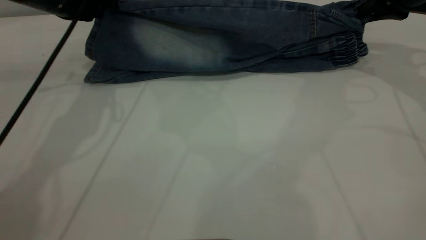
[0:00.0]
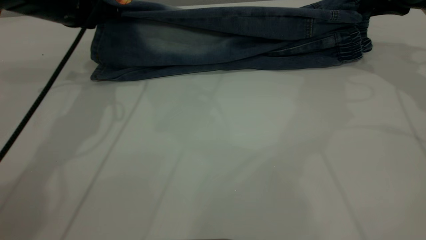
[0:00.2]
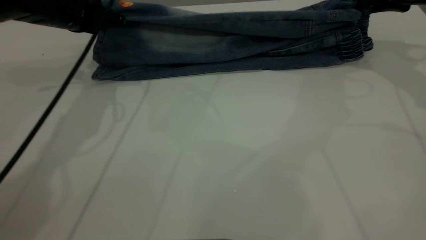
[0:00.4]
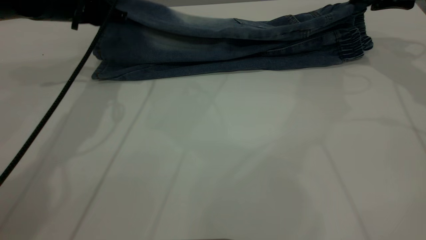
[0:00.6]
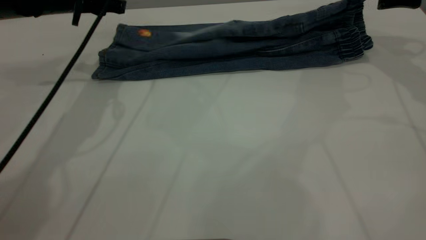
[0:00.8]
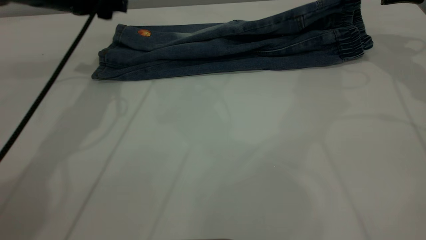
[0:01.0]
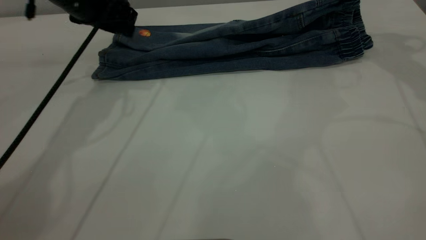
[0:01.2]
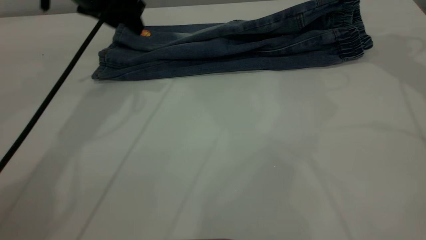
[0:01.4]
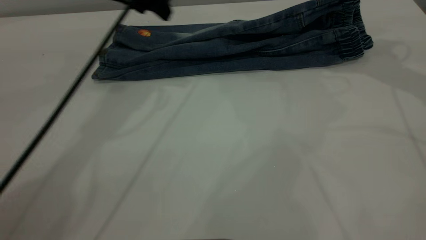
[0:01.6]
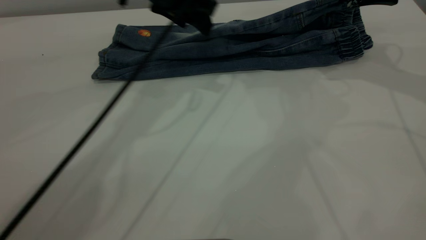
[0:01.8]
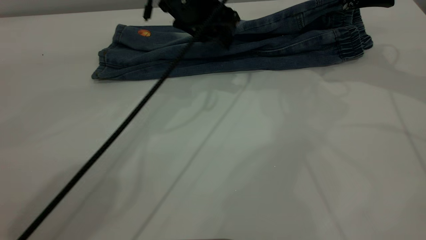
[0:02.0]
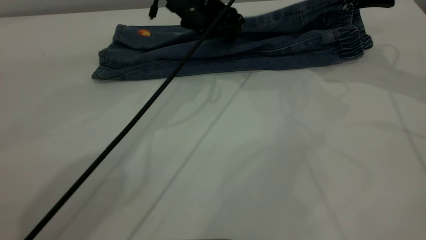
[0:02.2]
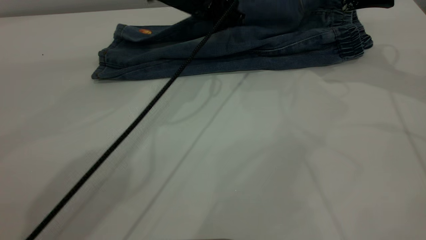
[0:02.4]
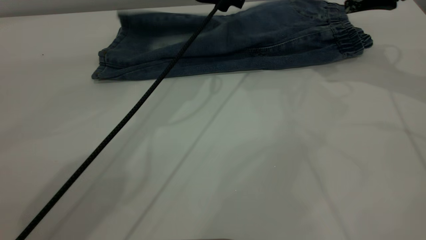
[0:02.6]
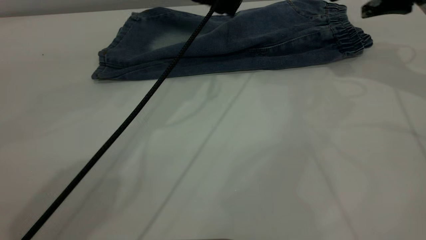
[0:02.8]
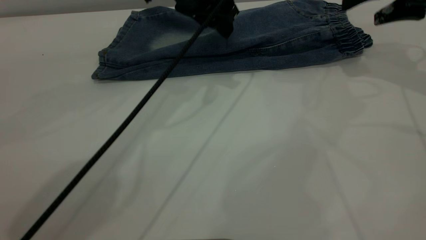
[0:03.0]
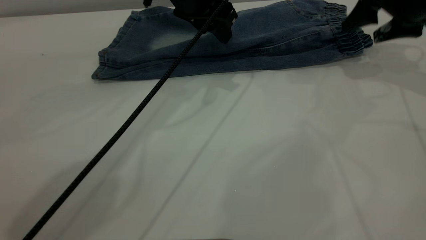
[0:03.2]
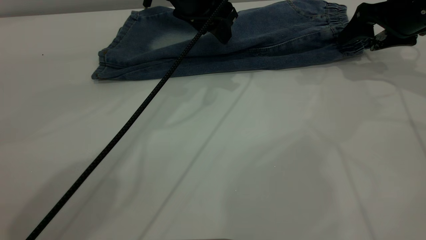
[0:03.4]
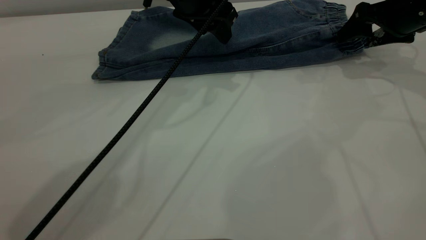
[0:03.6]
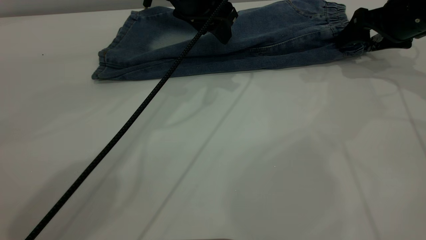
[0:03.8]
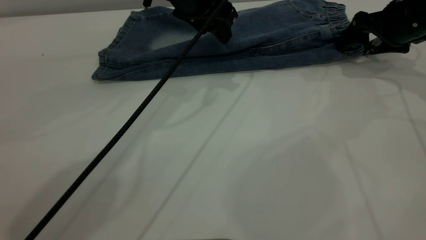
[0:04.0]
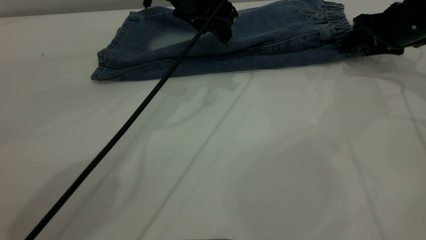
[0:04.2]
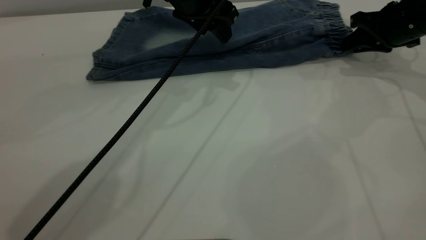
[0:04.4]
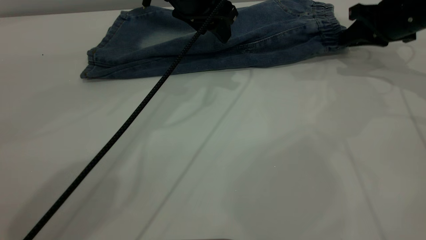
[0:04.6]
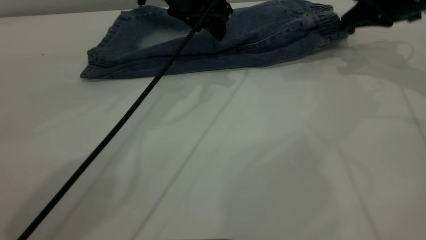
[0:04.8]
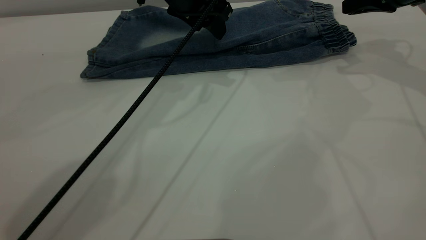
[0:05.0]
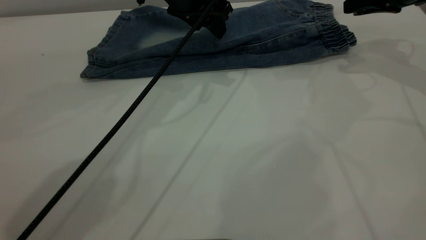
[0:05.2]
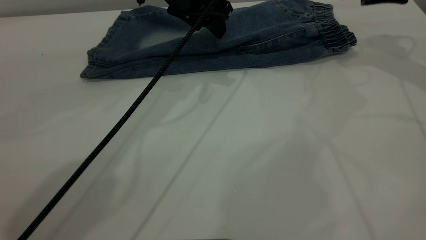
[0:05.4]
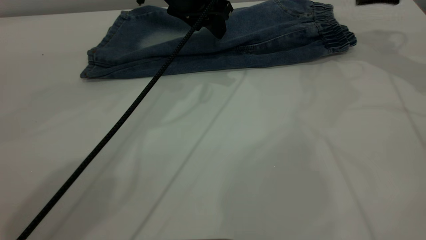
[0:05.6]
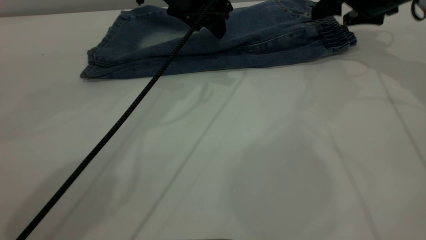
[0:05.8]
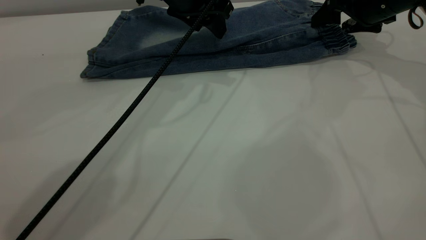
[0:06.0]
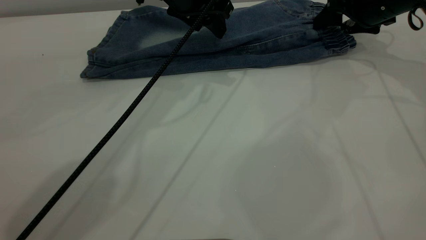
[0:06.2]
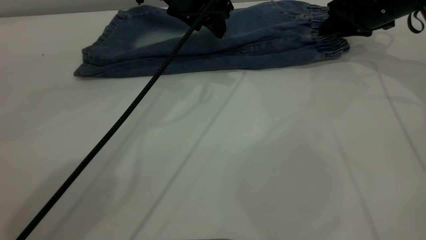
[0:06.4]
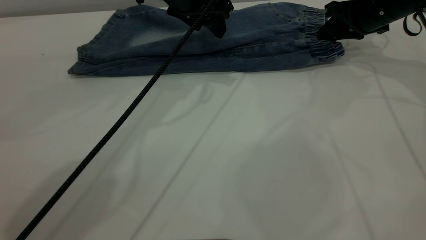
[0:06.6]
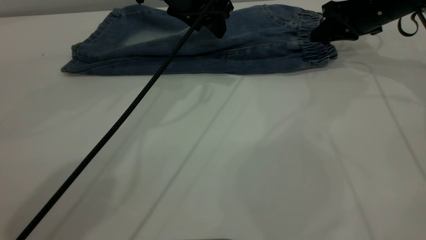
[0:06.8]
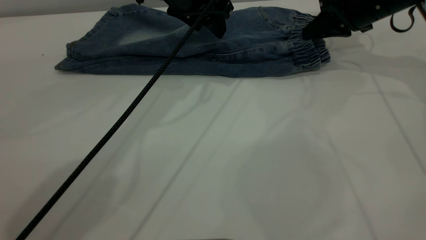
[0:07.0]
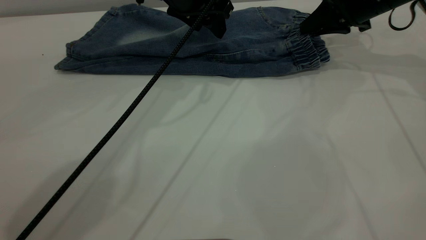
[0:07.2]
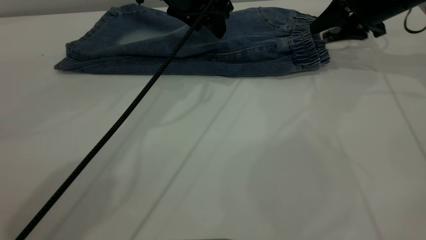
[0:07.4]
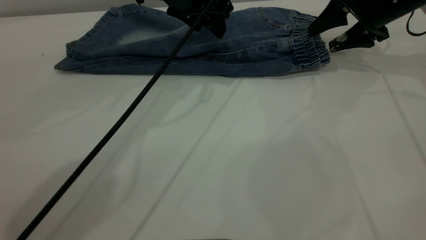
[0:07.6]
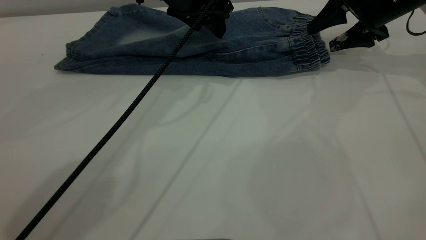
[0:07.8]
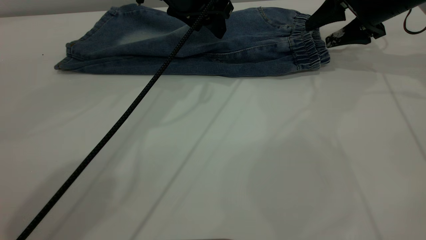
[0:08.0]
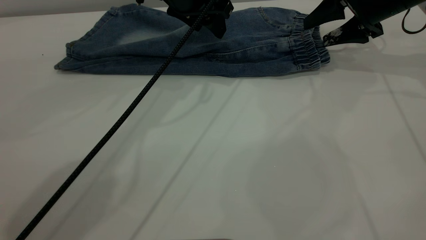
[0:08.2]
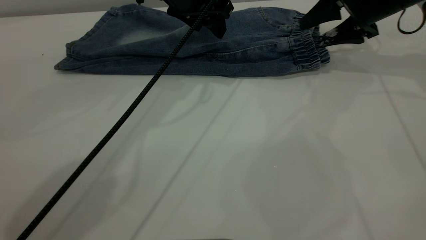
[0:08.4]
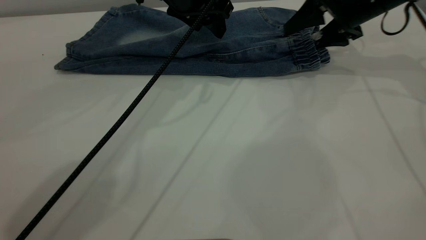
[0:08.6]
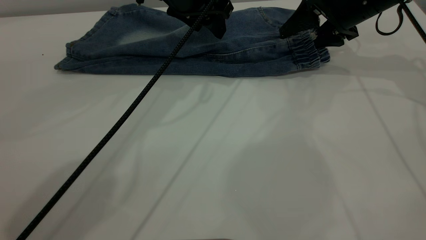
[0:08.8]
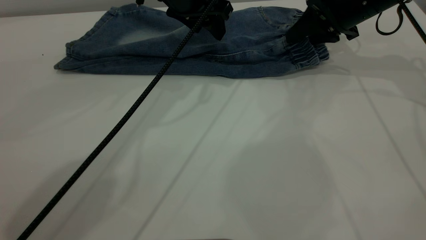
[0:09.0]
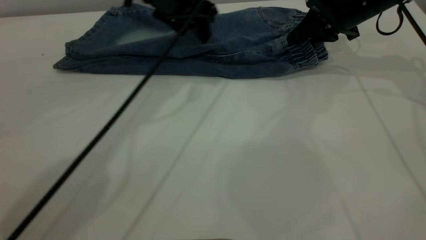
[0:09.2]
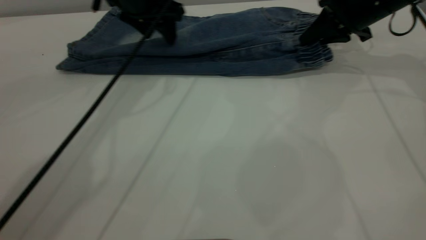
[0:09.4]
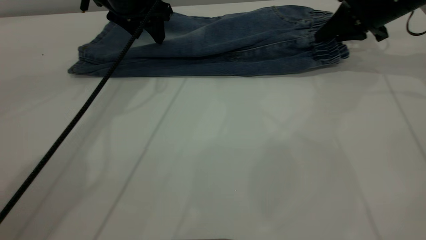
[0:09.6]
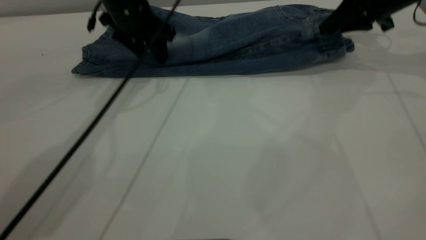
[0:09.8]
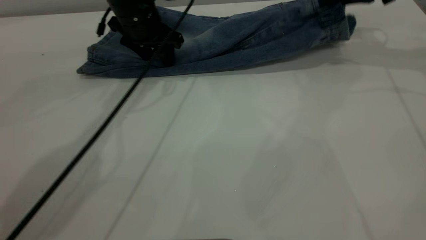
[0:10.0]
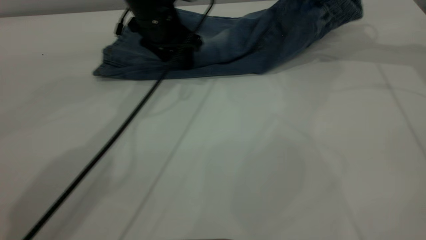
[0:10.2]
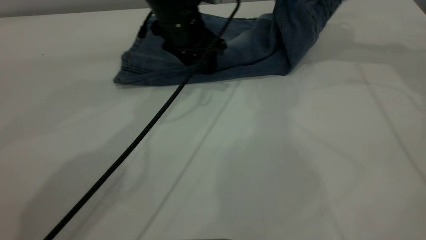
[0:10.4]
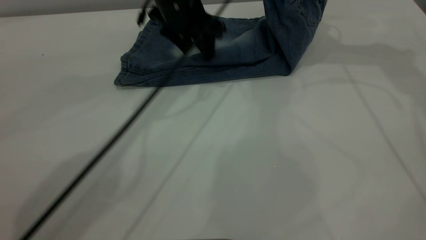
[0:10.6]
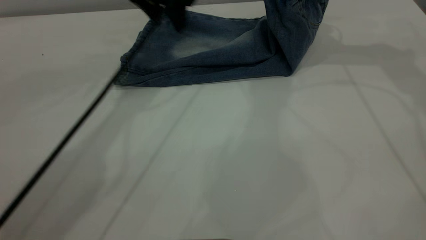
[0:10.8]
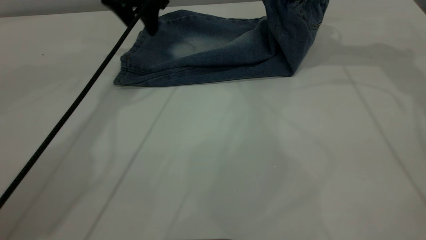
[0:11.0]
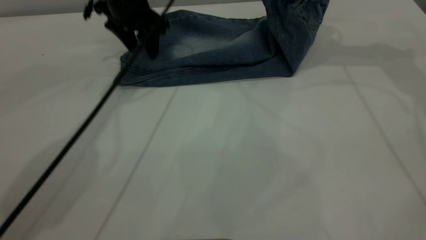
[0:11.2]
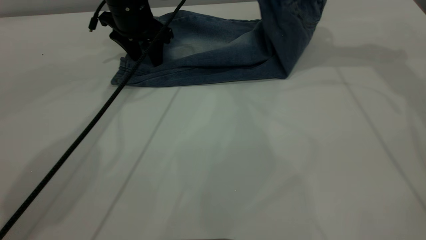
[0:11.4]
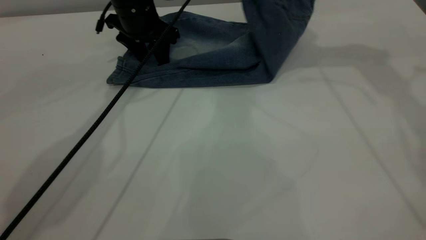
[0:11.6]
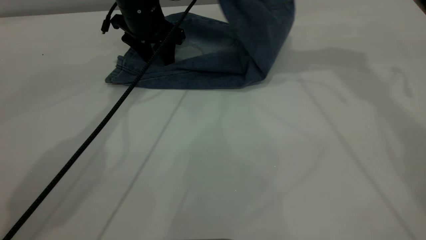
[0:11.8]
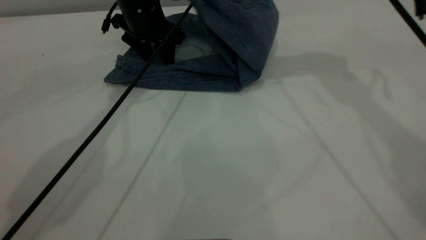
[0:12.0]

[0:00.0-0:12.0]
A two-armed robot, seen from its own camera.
0:00.0 to 0:01.6: The left gripper is displaced to the right by approximately 10 cm, and opens up, while the right gripper opens.
0:01.6 to 0:03.0: The left gripper heads to the right, covering some 10 cm.
0:03.0 to 0:04.4: The right gripper shifts approximately 5 cm downward, and closes.
0:04.4 to 0:06.0: The right gripper changes place by about 5 cm, and opens up.
0:06.0 to 0:07.6: The right gripper closes, then opens again.
0:07.6 to 0:09.0: The right gripper closes.
0:09.0 to 0:10.4: The right gripper heads upward, covering about 10 cm. The left gripper travels to the left and back again, roughly 10 cm each way.
0:10.4 to 0:12.0: The right gripper is displaced to the left by about 15 cm, while the left gripper travels to the left by roughly 5 cm.

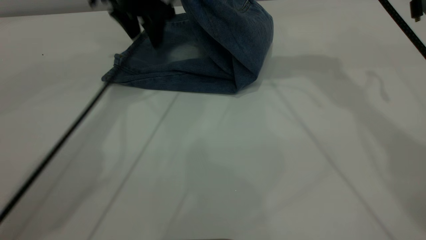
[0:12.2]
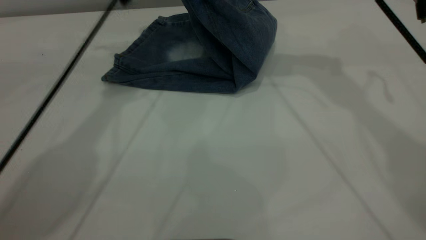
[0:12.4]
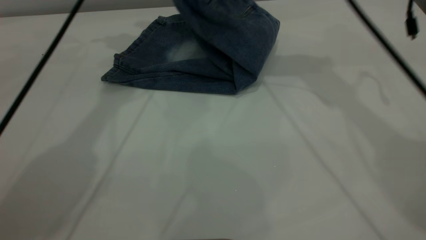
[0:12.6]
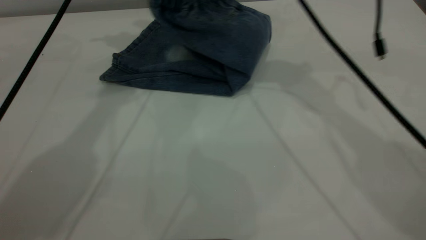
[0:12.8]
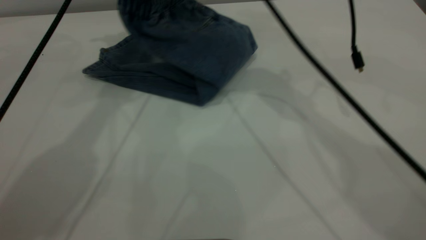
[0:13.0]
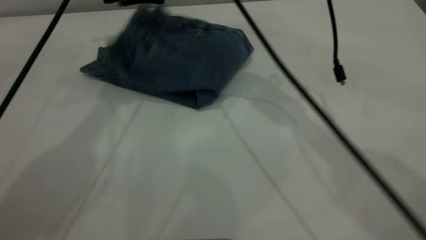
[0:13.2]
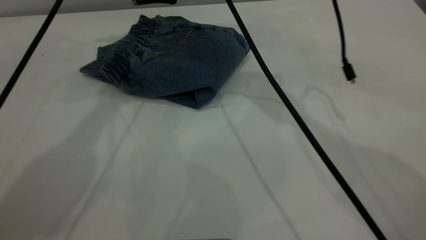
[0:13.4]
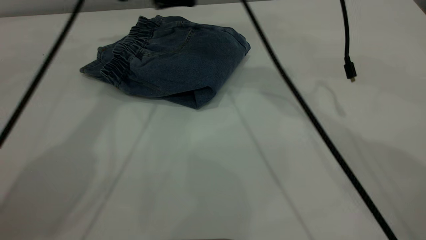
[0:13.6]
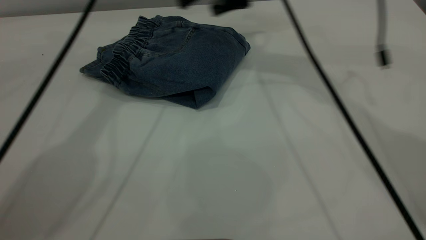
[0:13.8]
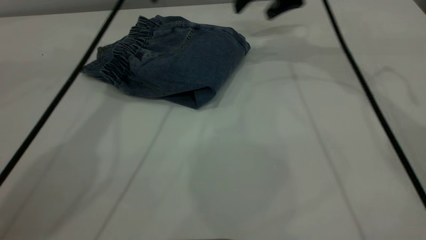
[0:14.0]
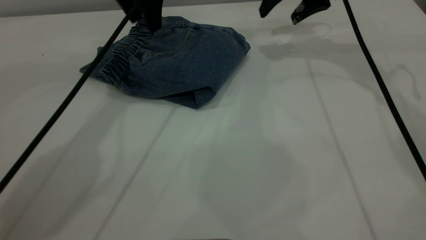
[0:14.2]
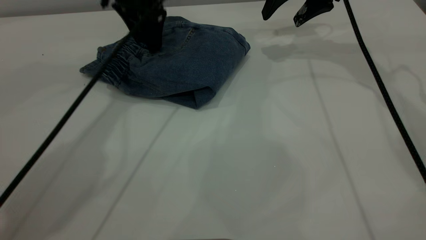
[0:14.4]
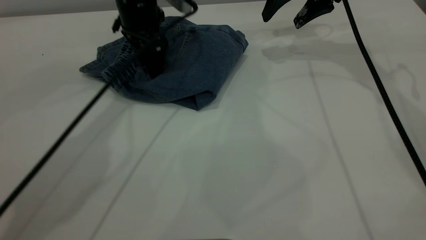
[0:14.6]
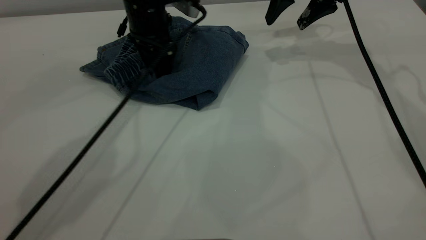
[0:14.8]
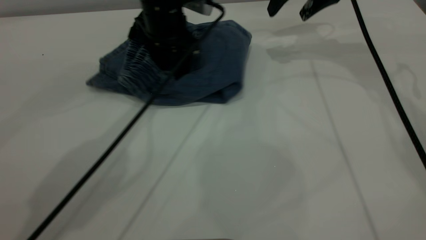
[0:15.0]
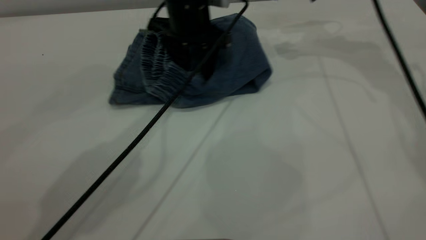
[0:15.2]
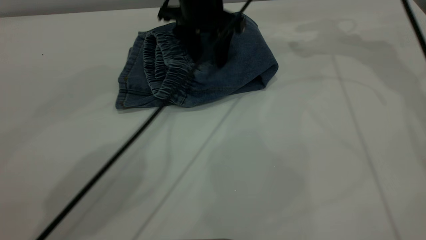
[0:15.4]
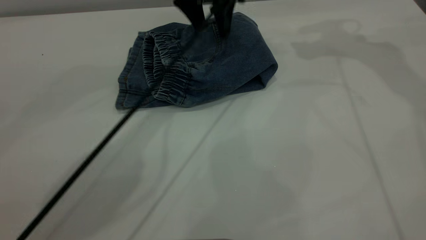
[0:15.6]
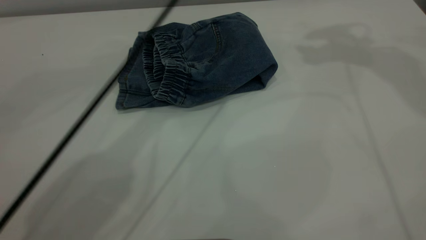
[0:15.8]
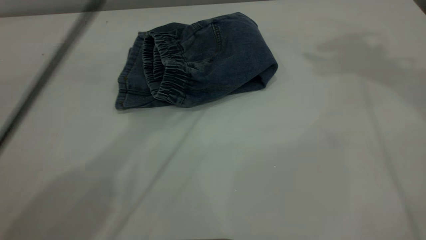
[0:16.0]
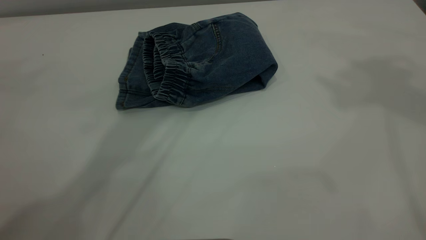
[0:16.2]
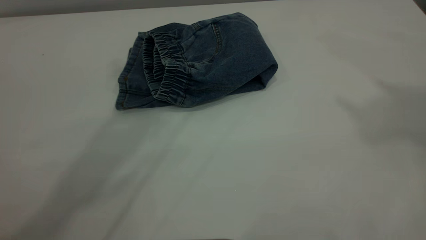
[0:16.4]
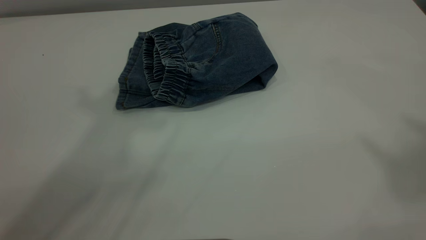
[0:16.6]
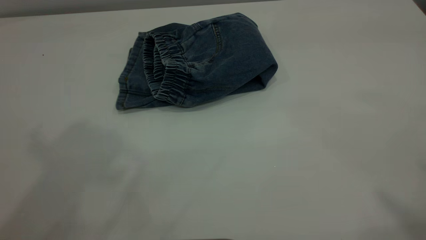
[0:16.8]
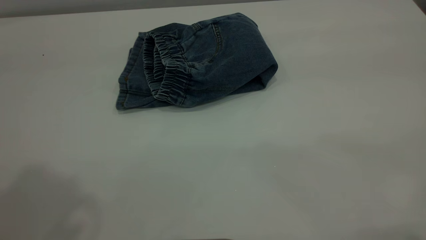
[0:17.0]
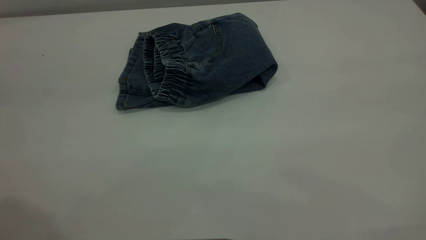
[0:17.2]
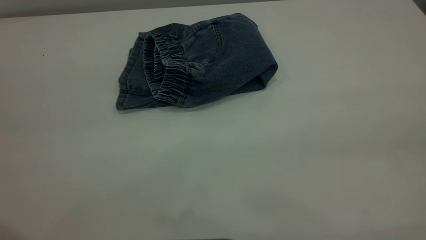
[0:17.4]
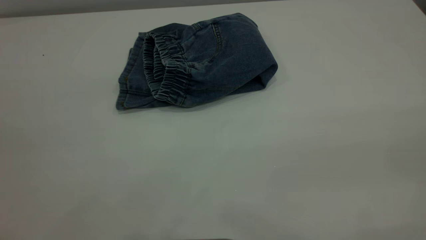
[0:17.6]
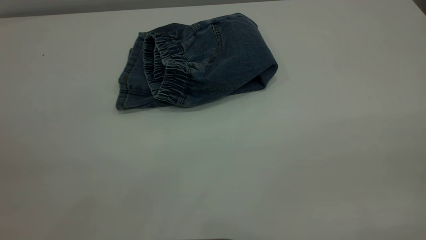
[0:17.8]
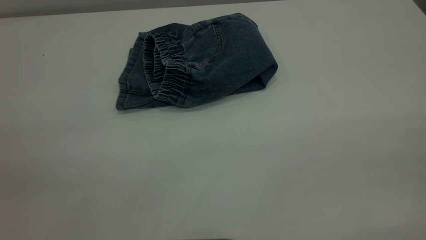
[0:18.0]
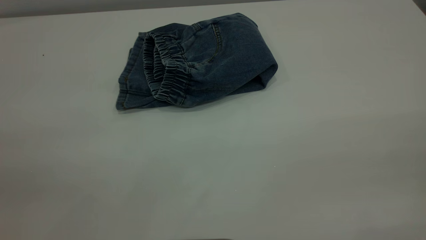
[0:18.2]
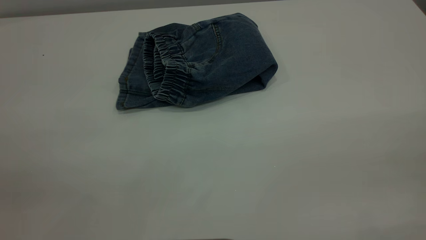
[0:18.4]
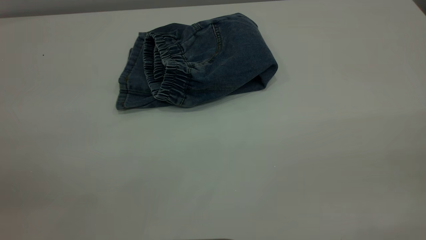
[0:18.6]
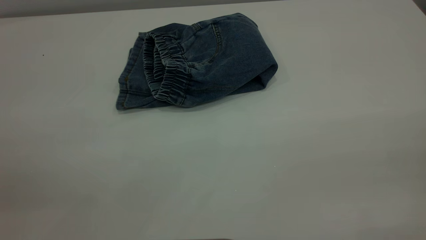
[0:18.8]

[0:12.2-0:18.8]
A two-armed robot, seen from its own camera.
0:12.2 to 0:13.8: The left gripper shifts some 10 cm upward, while the right gripper travels downward by roughly 10 cm, travels to the left and back again, roughly 10 cm each way, and opens.
0:13.8 to 0:15.4: The left gripper travels downward and to the right by some 15 cm. The right gripper heads to the right and upward, covering about 15 cm.
0:15.4 to 0:17.2: The right gripper shifts about 50 cm backward and upward. The left gripper is displaced backward, upward and to the left by about 50 cm.
